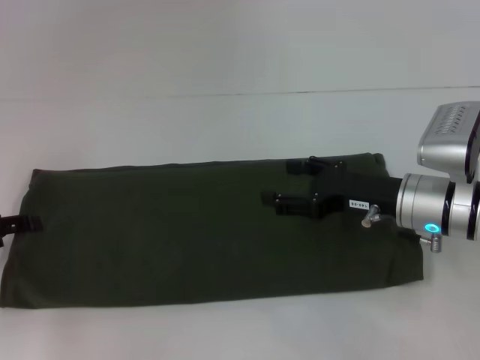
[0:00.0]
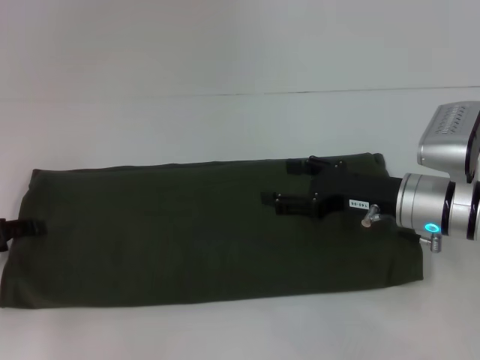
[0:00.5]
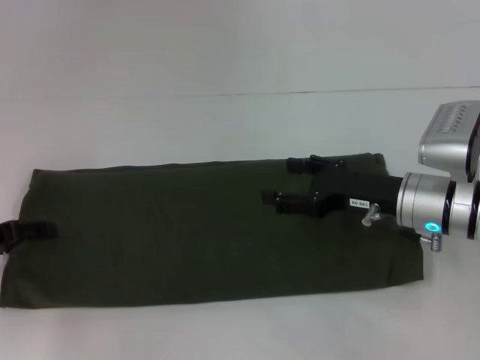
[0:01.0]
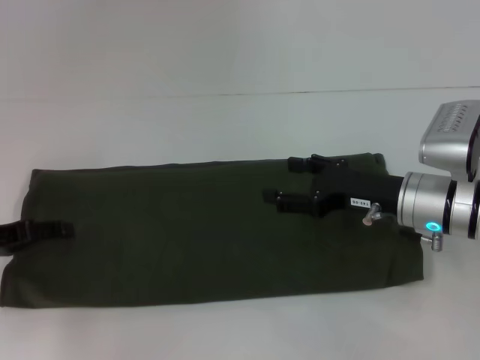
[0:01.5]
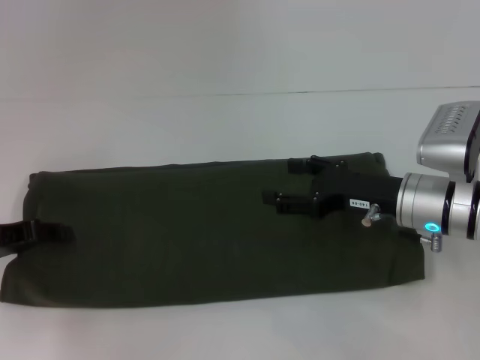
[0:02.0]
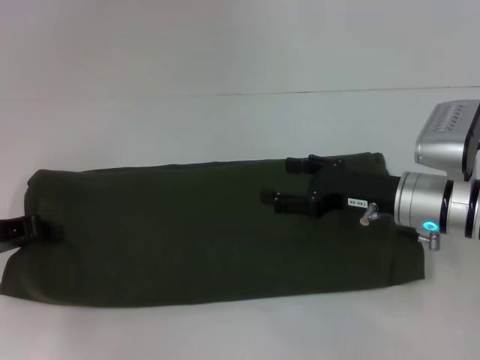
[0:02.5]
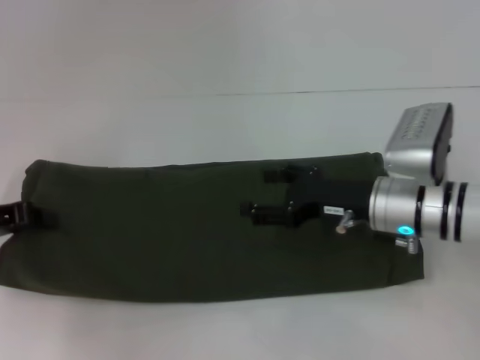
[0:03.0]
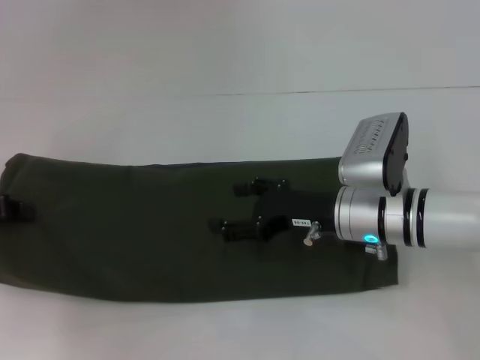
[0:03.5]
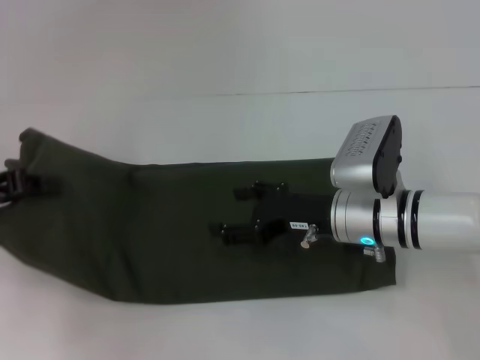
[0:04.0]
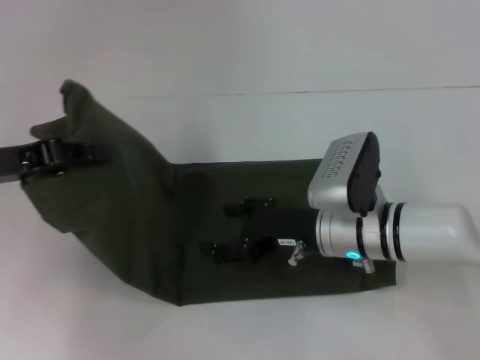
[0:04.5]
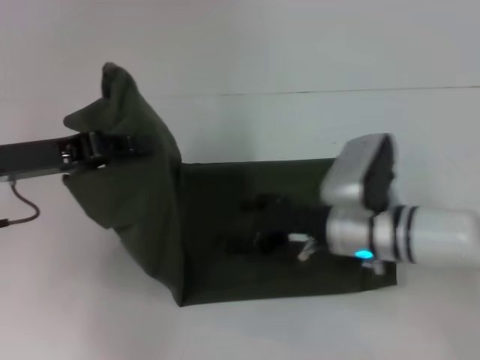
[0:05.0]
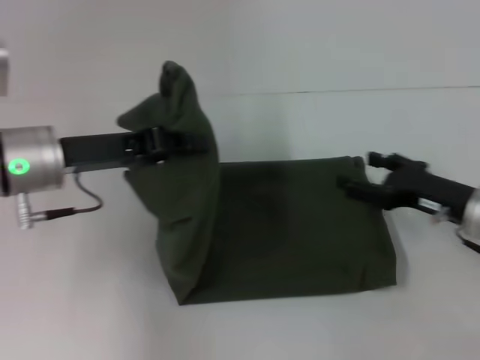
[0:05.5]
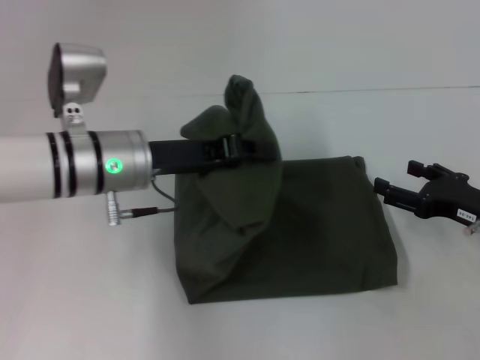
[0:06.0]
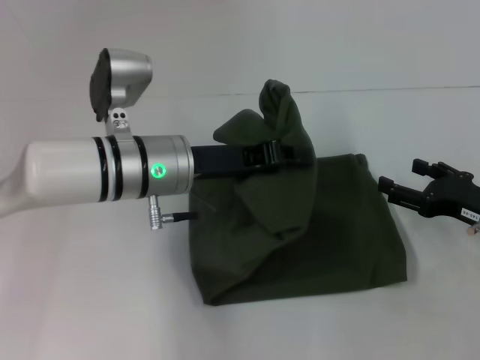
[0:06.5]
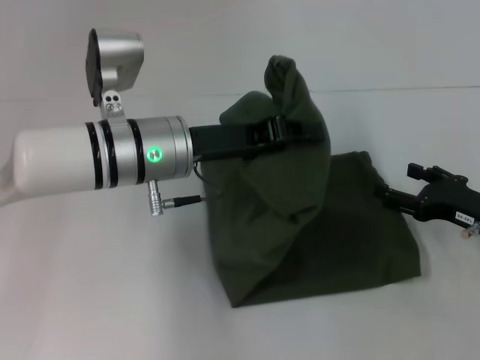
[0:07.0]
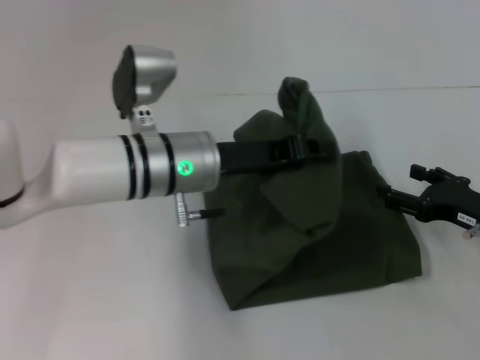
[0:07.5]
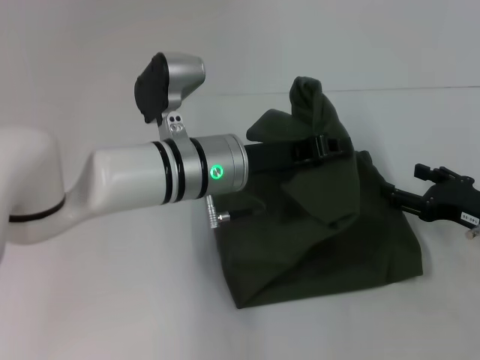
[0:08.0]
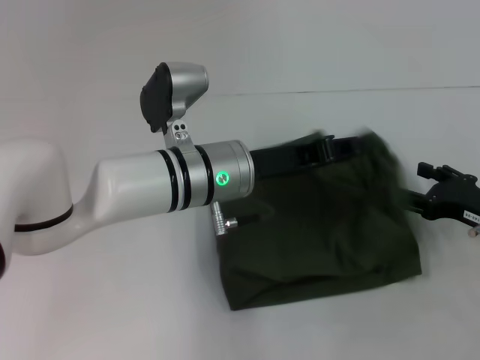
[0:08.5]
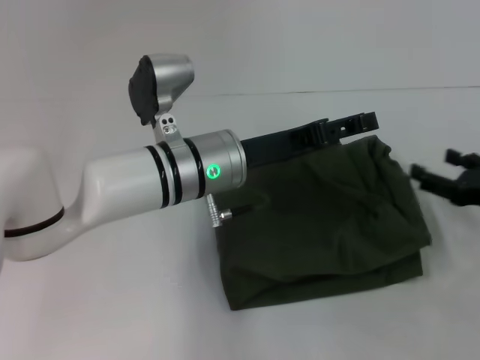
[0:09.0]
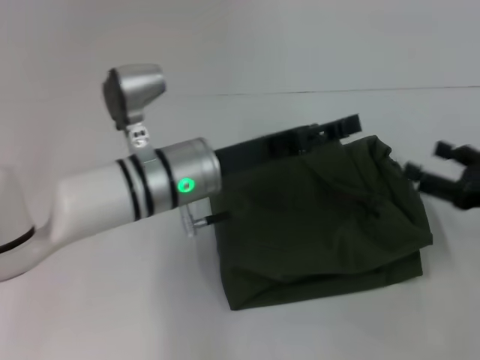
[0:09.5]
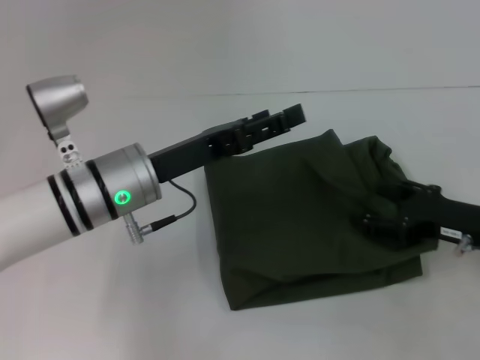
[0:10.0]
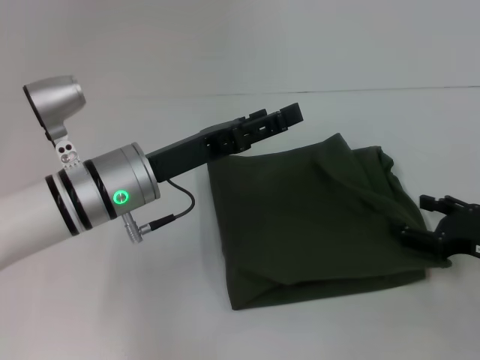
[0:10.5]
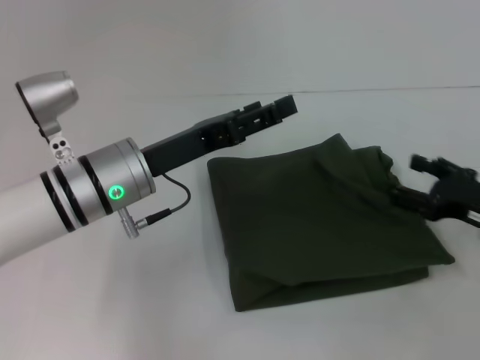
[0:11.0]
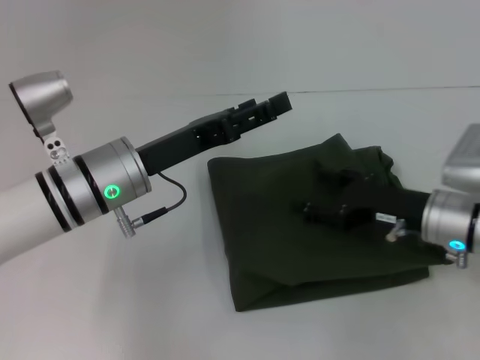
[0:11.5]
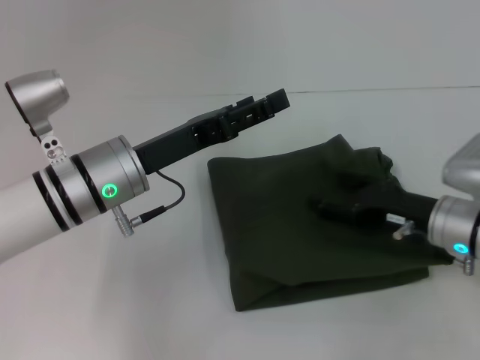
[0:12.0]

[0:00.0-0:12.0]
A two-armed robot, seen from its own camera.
Step, 0:00.0 to 0:09.0: Fold the clothes with your left hand.
0:00.0 to 0:02.0: The grippers stay close to where they were, moving slightly.
0:02.0 to 0:04.0: The left gripper goes some 5 cm upward, and closes its fingers. The right gripper shifts approximately 5 cm to the left.
0:04.0 to 0:06.0: Both grippers travel together to the right, some 15 cm.
0:06.0 to 0:08.0: The left gripper is displaced to the right by about 10 cm.
0:08.0 to 0:10.0: The left gripper is displaced to the left by roughly 10 cm, and opens up.
0:10.0 to 0:12.0: The right gripper changes place by roughly 5 cm.

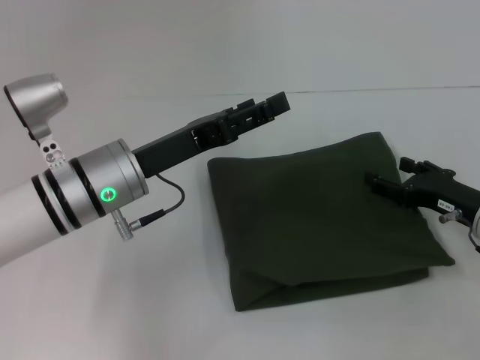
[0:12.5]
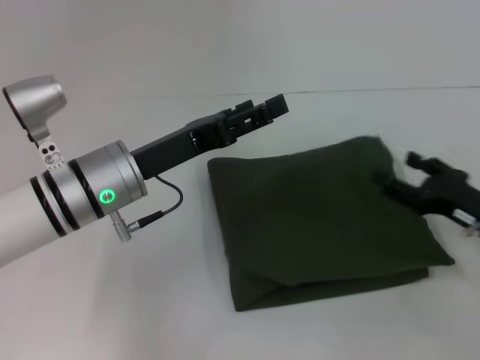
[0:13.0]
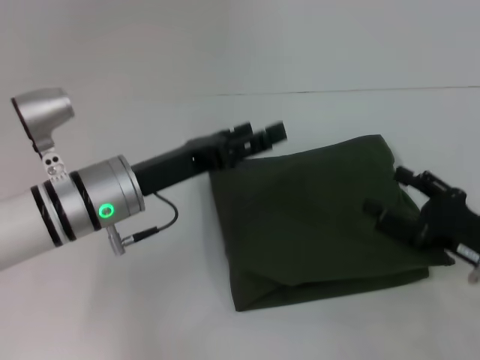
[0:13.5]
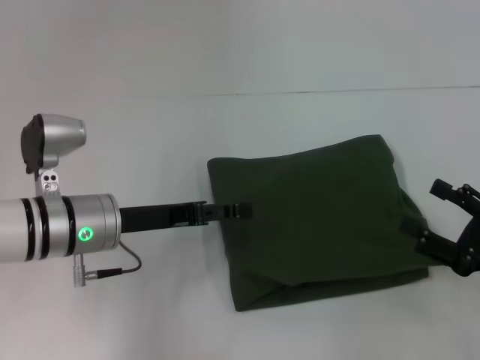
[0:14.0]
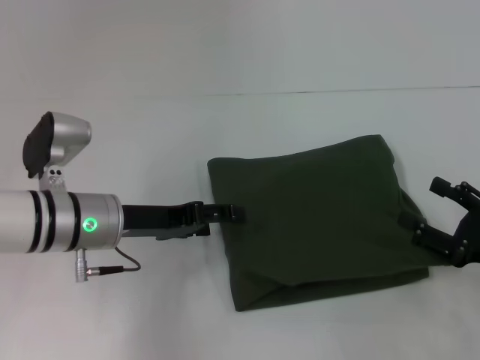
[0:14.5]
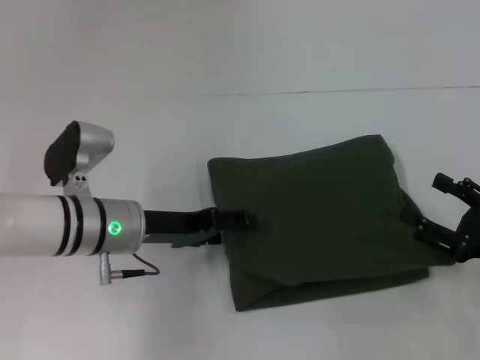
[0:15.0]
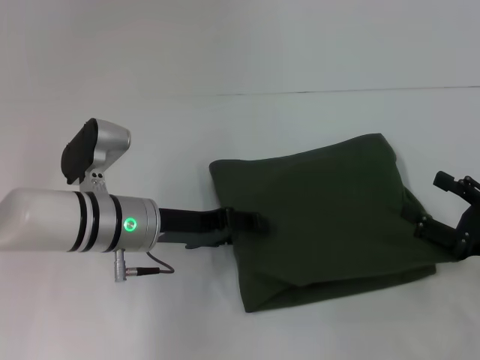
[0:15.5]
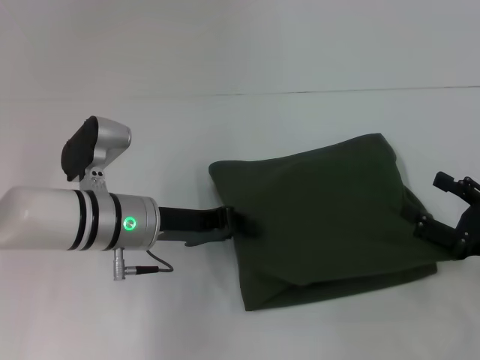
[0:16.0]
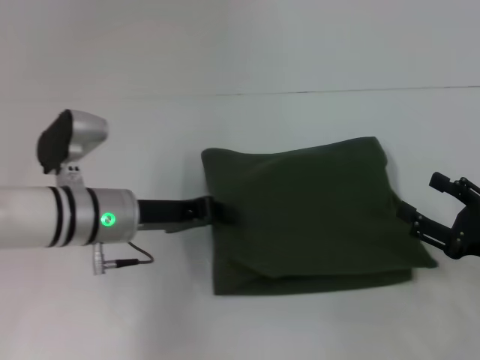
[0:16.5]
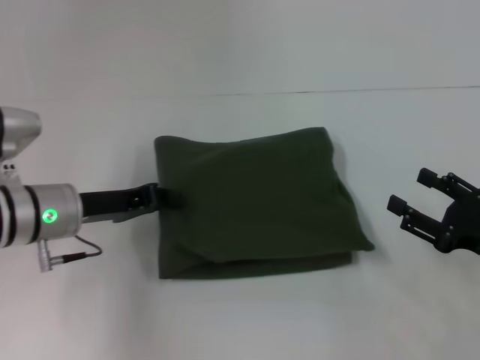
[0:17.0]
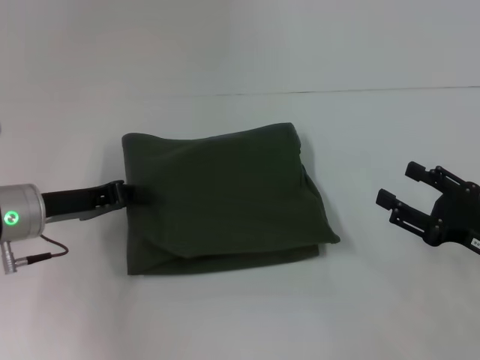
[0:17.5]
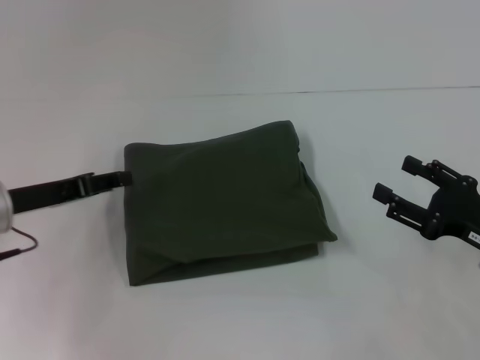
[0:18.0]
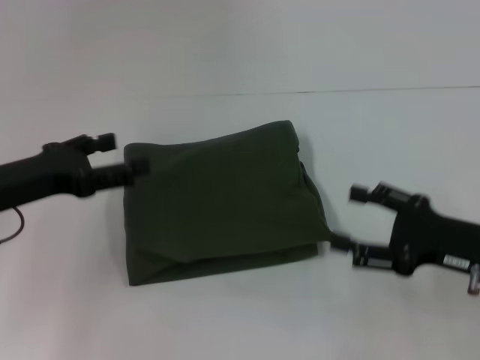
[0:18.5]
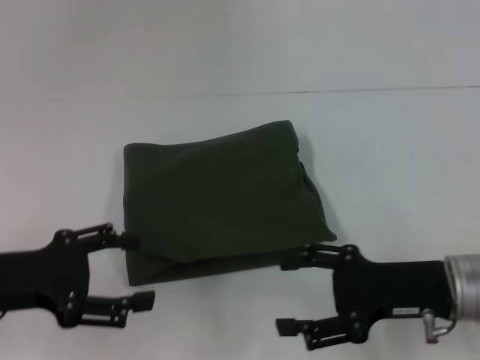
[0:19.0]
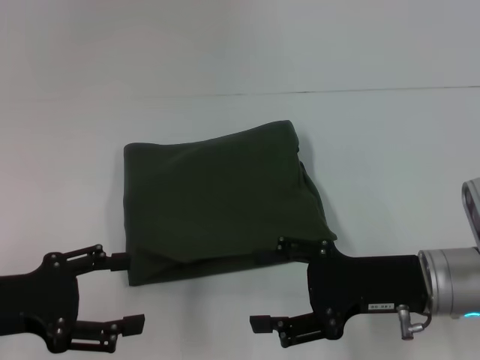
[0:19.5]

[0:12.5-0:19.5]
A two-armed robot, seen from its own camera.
0:12.5 to 0:14.5: The right gripper travels backward by roughly 10 cm.
0:14.5 to 0:16.0: The left gripper closes.
0:16.0 to 0:17.5: The left gripper moves to the left, roughly 10 cm, and closes its fingers.
0:17.5 to 0:19.5: The right gripper is displaced to the left by some 10 cm. The left gripper travels backward by some 10 cm, and opens.
